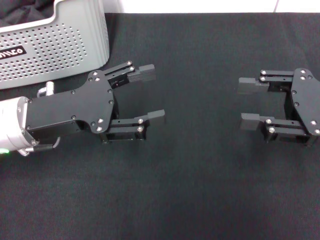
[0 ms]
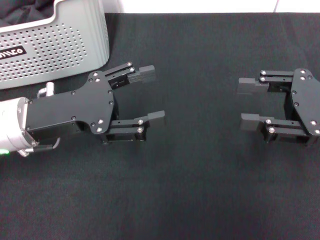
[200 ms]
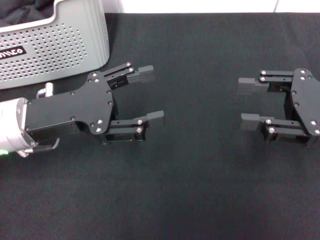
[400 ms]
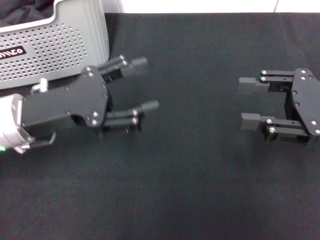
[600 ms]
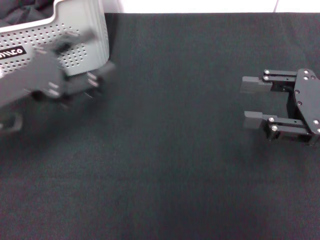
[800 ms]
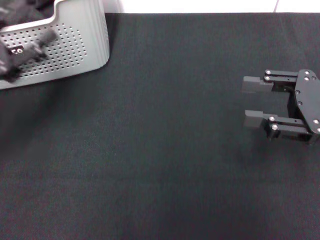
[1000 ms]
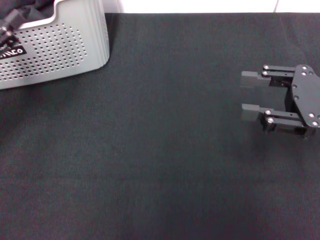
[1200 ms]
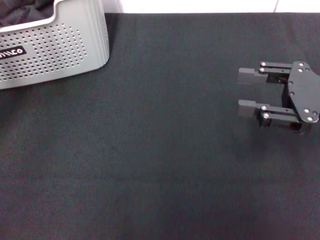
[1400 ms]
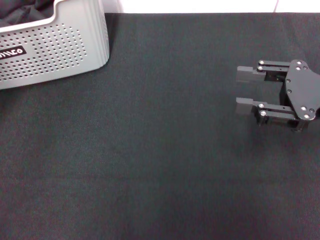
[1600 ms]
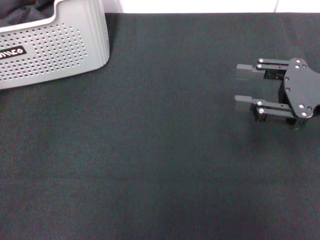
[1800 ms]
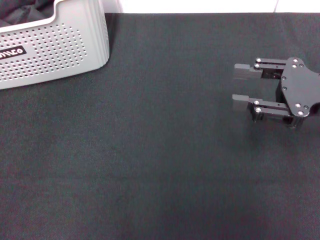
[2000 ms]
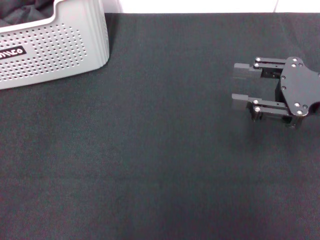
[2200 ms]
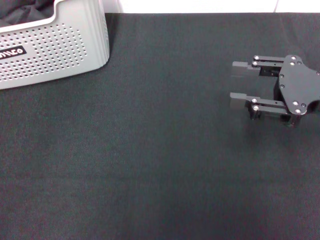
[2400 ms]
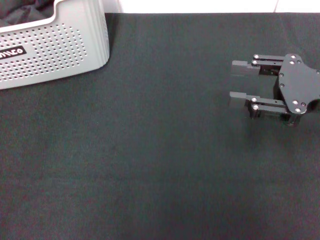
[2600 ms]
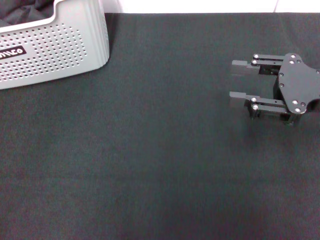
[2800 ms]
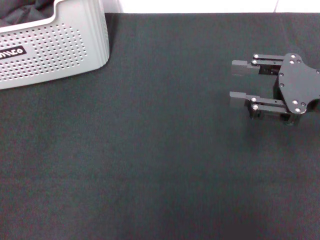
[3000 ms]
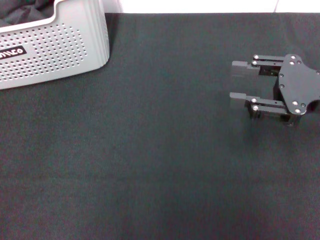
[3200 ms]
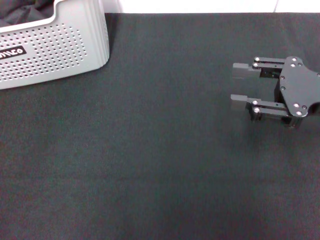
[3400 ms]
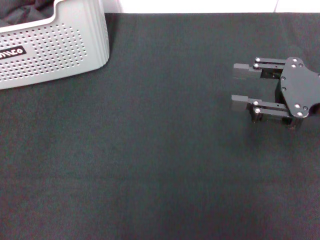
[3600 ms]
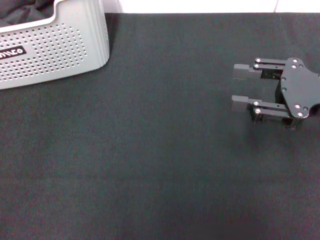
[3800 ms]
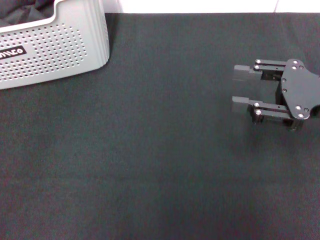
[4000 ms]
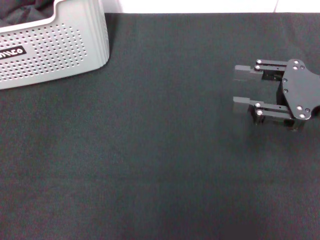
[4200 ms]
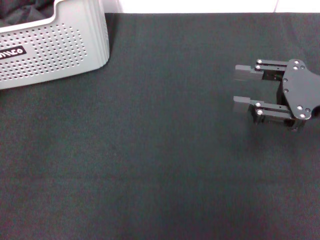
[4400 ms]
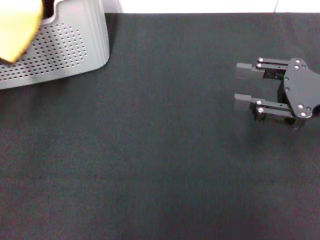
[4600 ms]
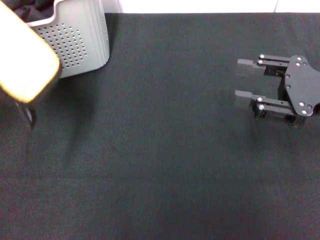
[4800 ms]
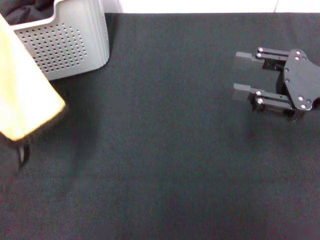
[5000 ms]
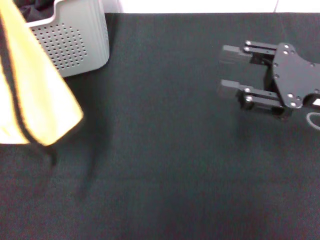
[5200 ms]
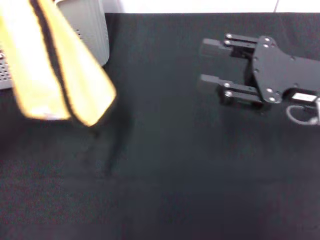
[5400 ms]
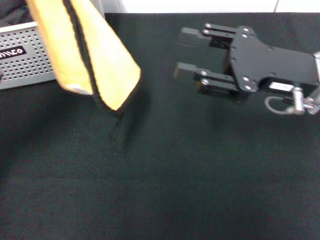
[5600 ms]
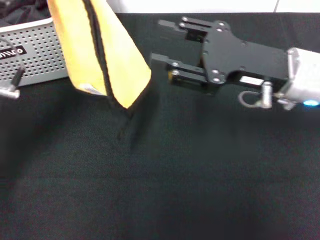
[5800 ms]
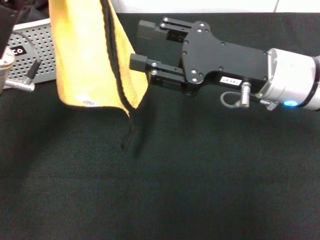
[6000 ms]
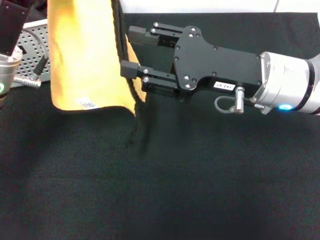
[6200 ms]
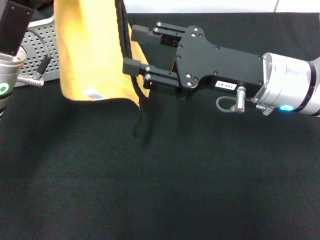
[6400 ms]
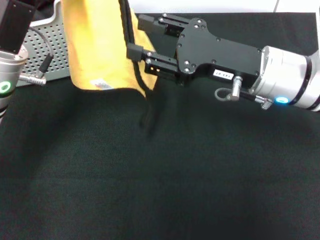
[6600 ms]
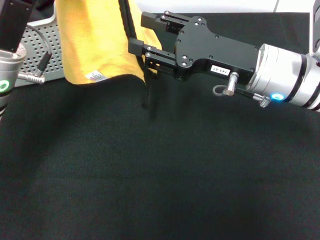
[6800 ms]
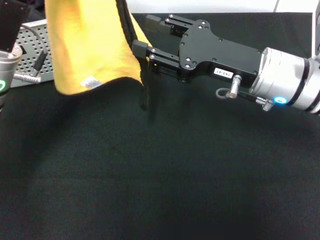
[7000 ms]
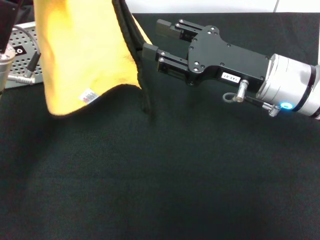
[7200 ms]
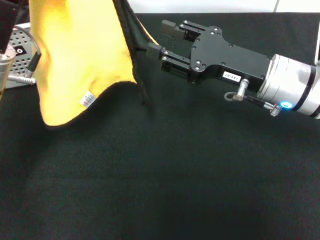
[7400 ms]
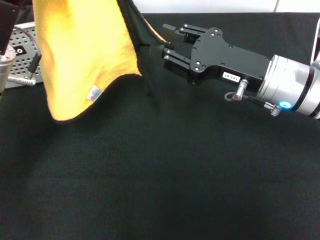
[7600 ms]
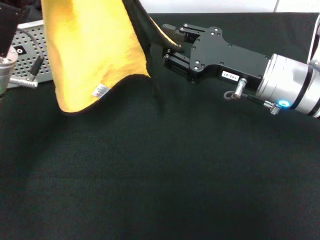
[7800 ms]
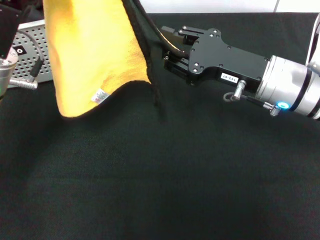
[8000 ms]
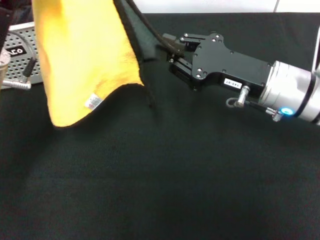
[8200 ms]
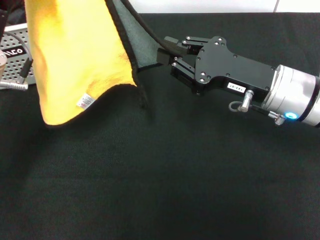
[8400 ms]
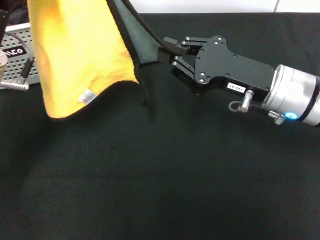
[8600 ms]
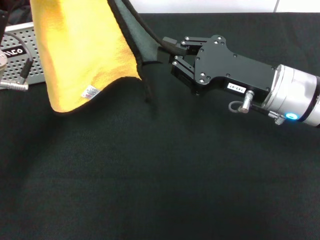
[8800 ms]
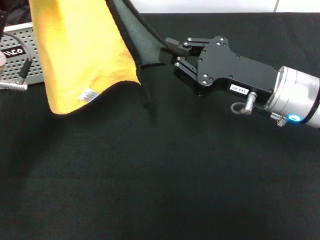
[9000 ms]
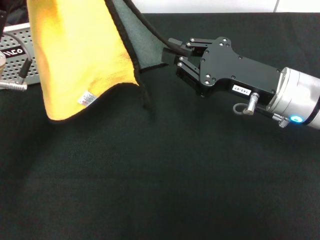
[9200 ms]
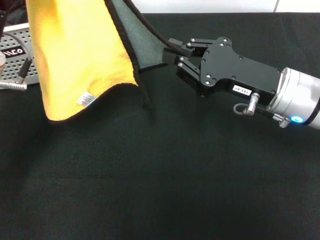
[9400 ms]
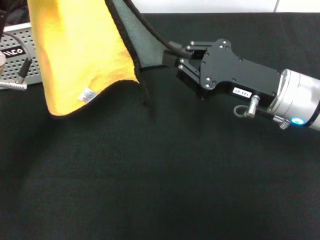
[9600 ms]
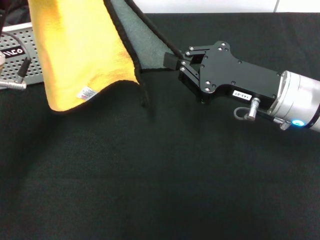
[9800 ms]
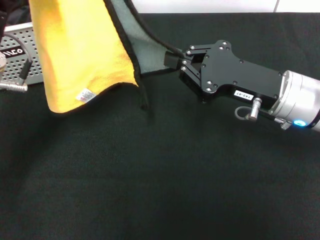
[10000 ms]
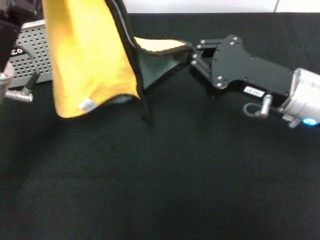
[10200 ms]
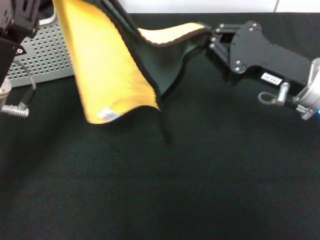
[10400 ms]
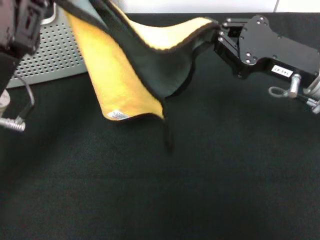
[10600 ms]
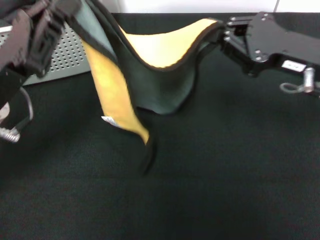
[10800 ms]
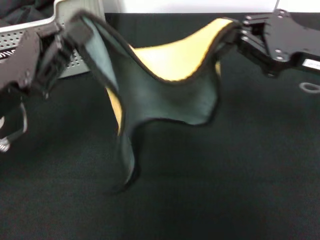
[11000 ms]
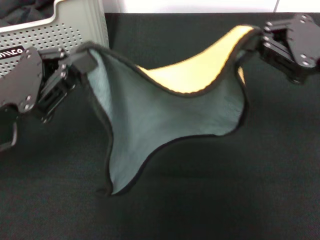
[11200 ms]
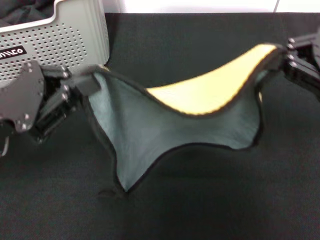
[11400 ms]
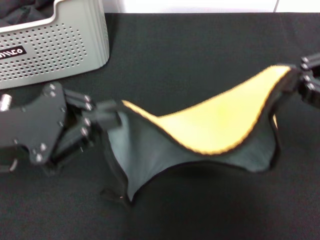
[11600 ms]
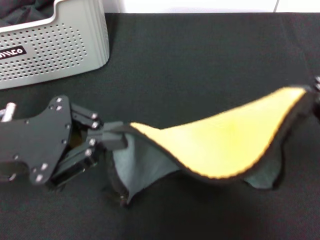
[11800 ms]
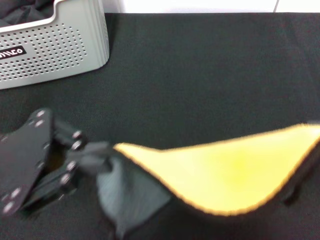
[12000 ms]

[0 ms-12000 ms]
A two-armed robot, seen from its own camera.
Task of the whole recording: pick up the towel from the storage box and lay it flat on the black tablecloth.
Step, 0 ms to 3600 ms: Pick up a towel with the left gripper.
Step, 3800 ms to 9000 ms: Spread the towel flat with the left gripper.
0 ms to 1600 ms: The left gripper travels to the left by some 15 cm.
1600 ms to 3000 ms: The left gripper shifts roughly 5 cm to the left.
4400 ms to 6000 ms: The right gripper goes approximately 10 cm to the left; the left gripper is displaced to the right by some 15 cm.
6000 ms to 7600 ms: The grippers make only small movements.
7600 ms to 9000 ms: The right gripper closes its fingers.
10400 ms to 12000 ms: The right gripper moves to the right, backward and upward, approximately 15 cm. Meanwhile the left gripper goes approximately 5 cm backward.

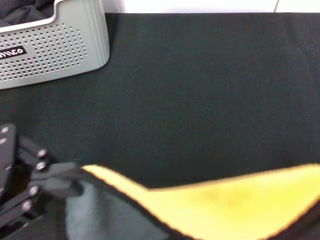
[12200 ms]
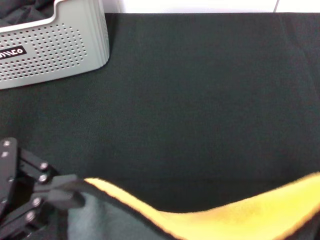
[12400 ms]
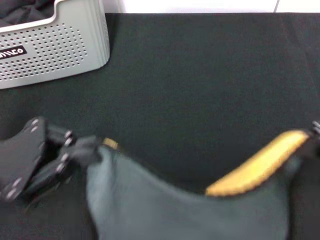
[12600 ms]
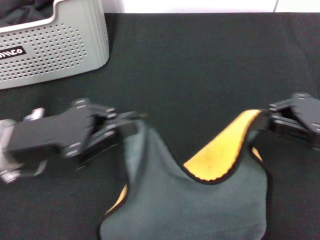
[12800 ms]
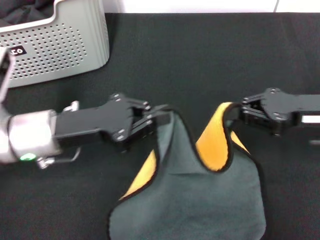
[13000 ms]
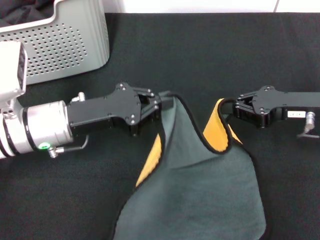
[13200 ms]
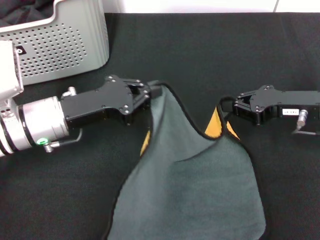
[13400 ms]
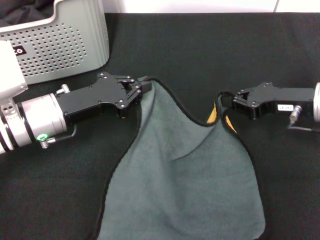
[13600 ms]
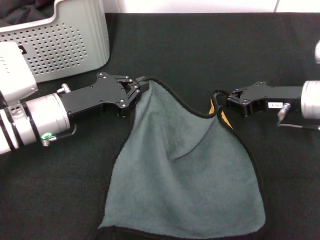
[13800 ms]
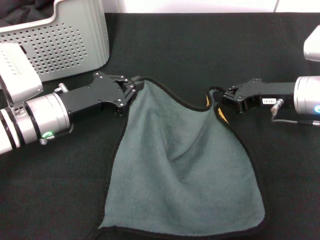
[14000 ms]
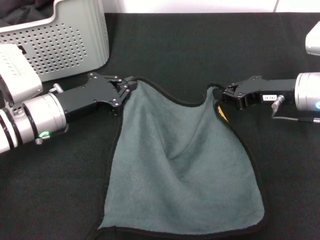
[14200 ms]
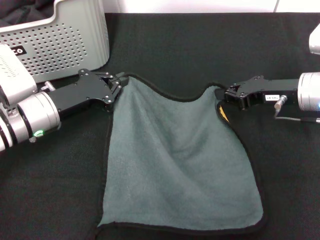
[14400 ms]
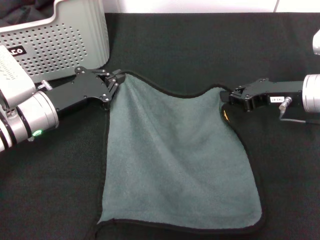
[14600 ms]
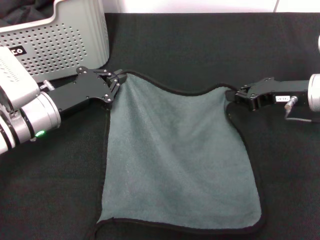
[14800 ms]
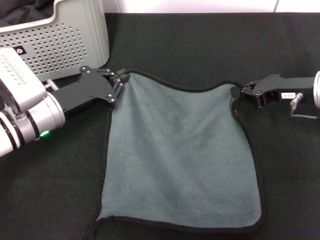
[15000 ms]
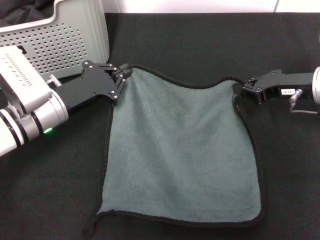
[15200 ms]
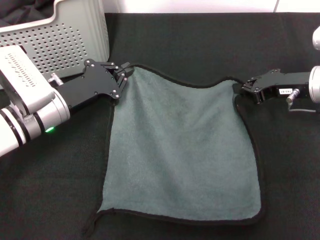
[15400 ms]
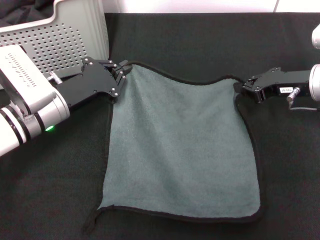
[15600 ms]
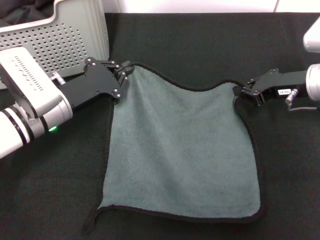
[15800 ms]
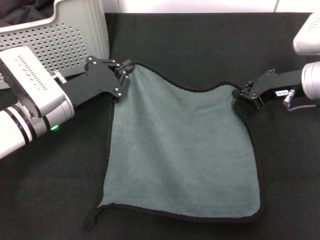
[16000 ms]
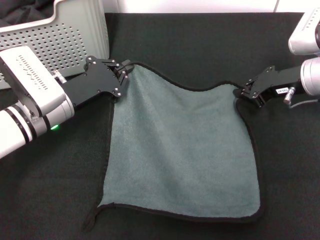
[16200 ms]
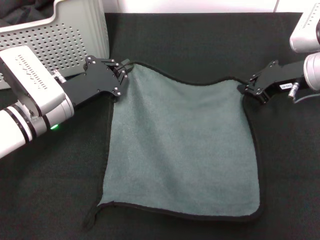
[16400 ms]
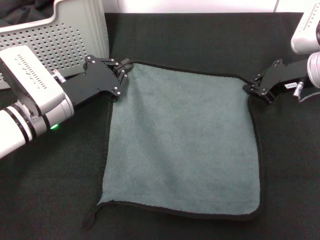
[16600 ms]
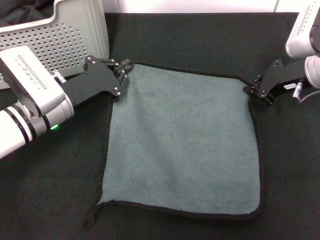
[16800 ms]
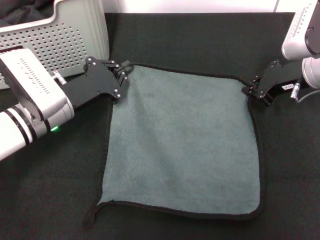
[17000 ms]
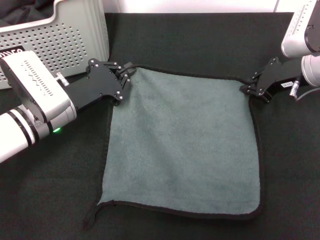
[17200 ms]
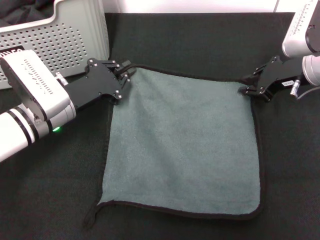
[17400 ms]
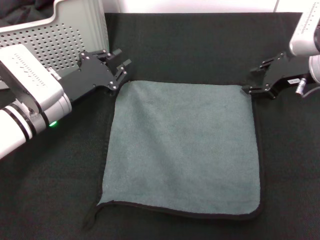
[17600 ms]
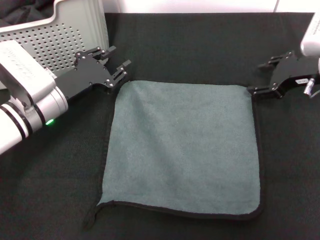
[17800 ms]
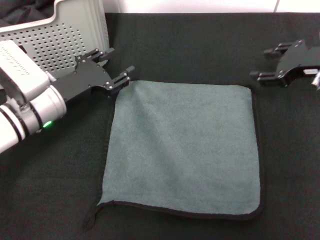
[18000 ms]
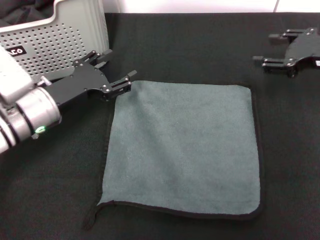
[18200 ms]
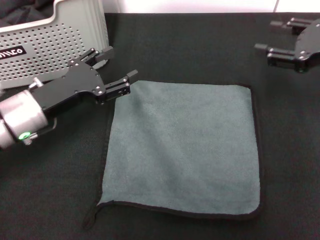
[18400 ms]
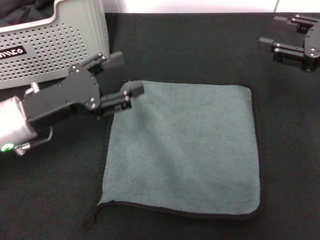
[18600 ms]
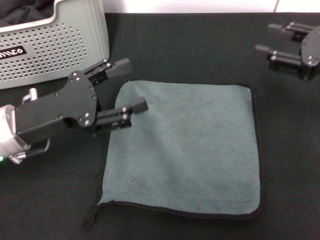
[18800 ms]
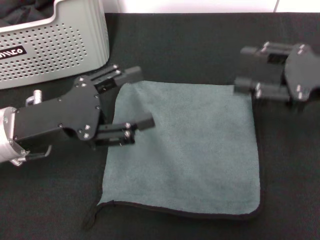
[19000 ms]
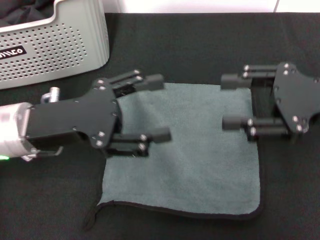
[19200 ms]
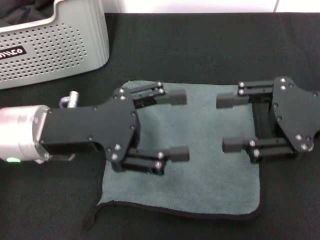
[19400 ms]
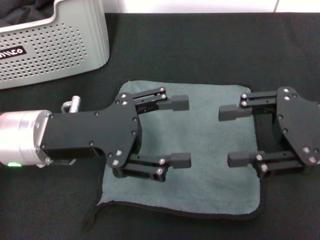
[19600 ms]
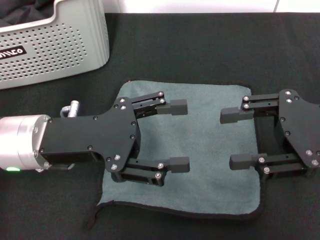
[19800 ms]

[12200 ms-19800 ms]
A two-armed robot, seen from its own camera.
Task of the whole recording: pick up the towel from the storage box and lay it flat on the black tablecloth.
Step, 12200 ms to 17600 ms: Spread the towel flat with the right gripper.
12200 ms to 13800 ms: The right gripper shifts roughly 20 cm forward, downward and to the left. Meanwhile the left gripper goes roughly 20 cm forward, downward and to the right.
16800 ms to 18200 ms: The right gripper changes place by roughly 10 cm, and opens up. The left gripper opens its fingers.
18200 ms to 19800 ms: The left gripper goes roughly 10 cm upward and backward, while the right gripper moves backward, approximately 10 cm.

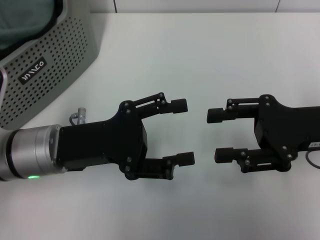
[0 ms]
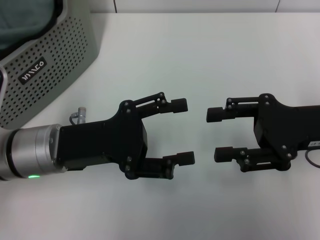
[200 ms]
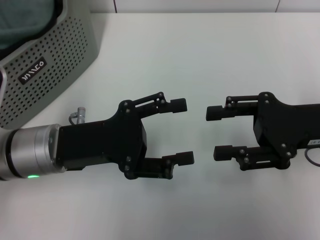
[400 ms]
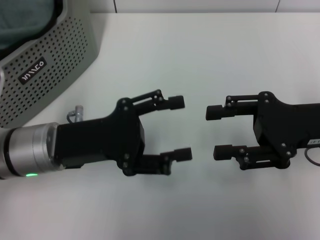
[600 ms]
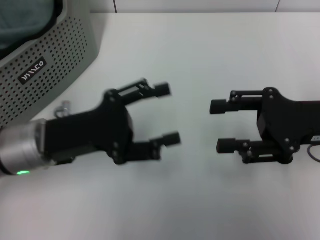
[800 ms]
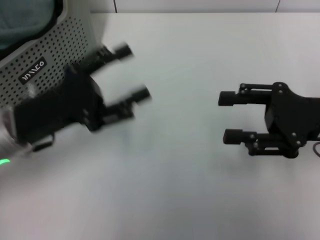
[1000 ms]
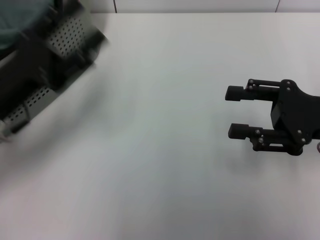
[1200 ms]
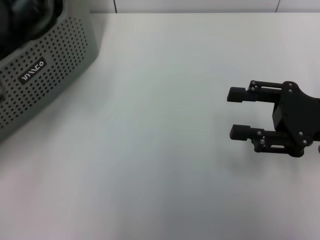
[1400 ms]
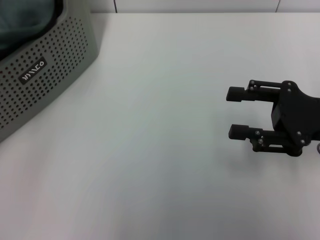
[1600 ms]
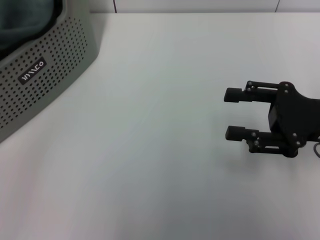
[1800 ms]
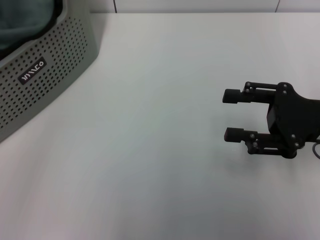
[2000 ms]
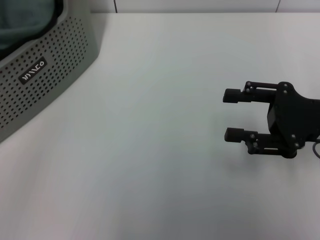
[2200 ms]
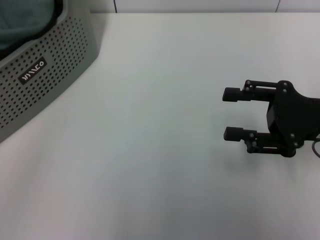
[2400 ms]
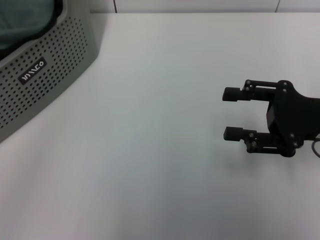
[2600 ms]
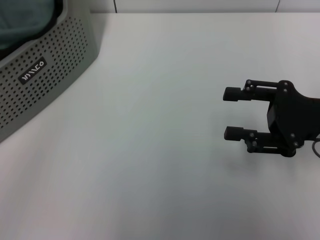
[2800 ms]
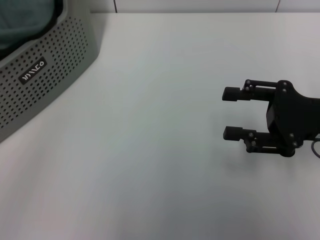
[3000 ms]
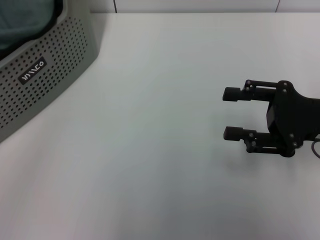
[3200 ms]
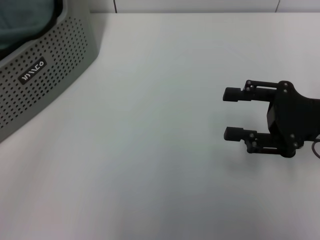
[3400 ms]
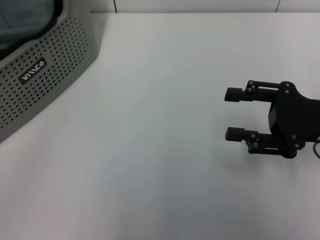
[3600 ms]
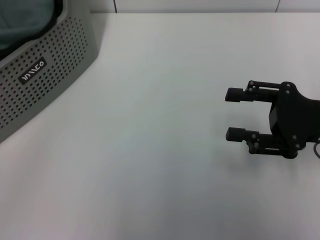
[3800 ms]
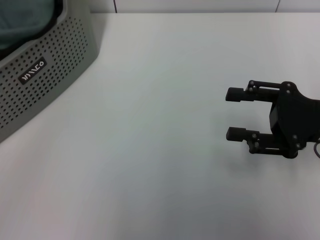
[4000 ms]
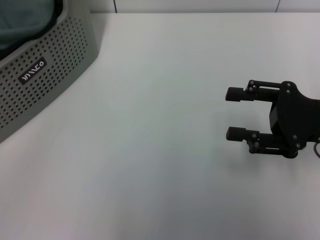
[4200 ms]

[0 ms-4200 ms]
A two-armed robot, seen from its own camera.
Task of the whole recording: pick up the towel from the storage box and lay it flat on the table.
0 ms to 1400 ms: The left gripper goes about 10 cm to the left.
1400 ms to 2800 ms: The left gripper heads to the left and upward, covering approximately 15 cm.
2800 ms to 4200 ms: The grippers make only small movements.
